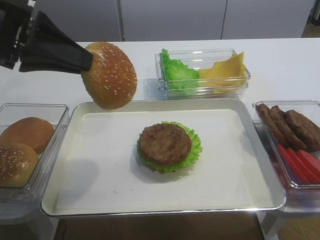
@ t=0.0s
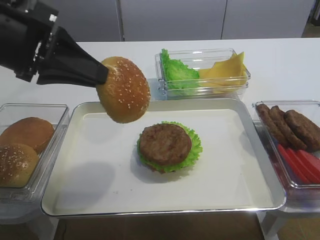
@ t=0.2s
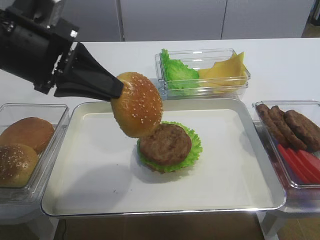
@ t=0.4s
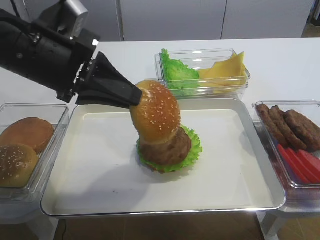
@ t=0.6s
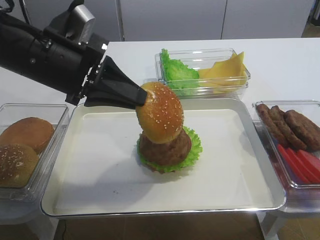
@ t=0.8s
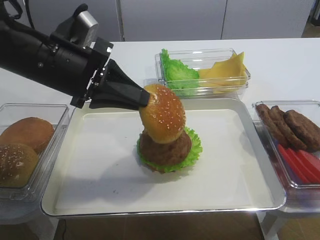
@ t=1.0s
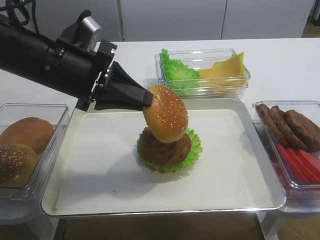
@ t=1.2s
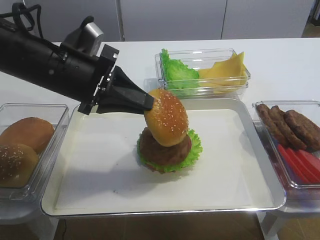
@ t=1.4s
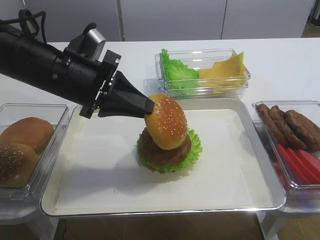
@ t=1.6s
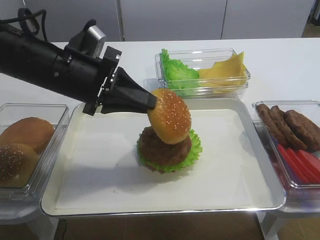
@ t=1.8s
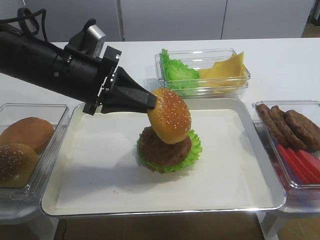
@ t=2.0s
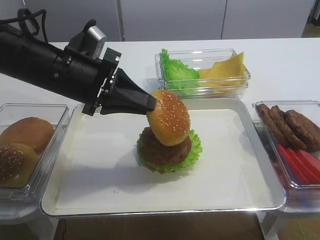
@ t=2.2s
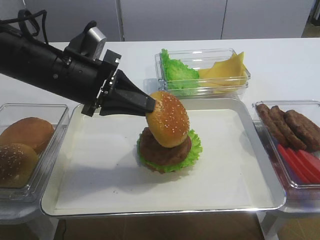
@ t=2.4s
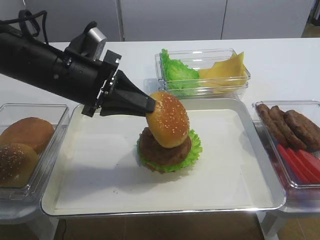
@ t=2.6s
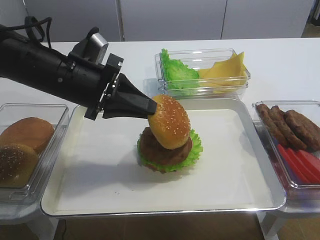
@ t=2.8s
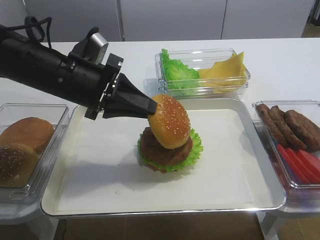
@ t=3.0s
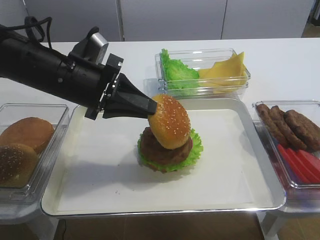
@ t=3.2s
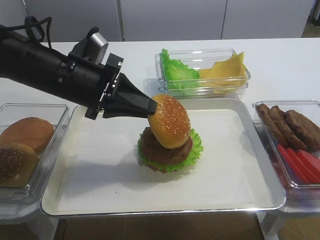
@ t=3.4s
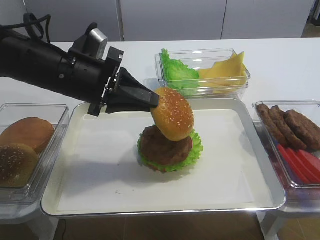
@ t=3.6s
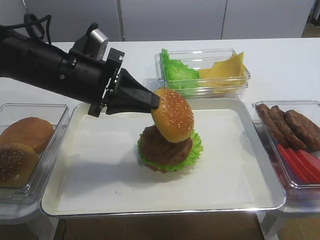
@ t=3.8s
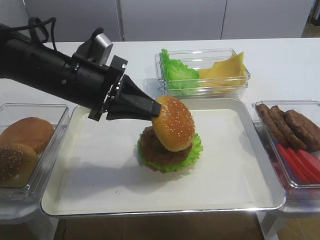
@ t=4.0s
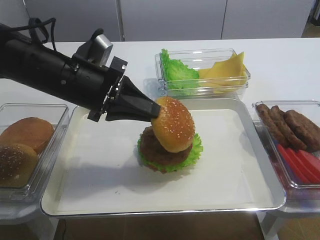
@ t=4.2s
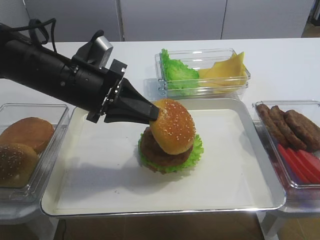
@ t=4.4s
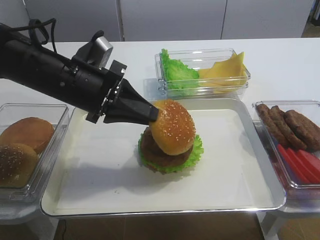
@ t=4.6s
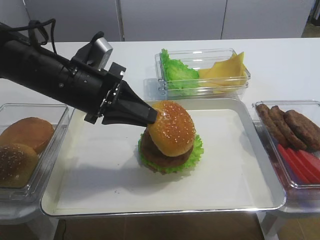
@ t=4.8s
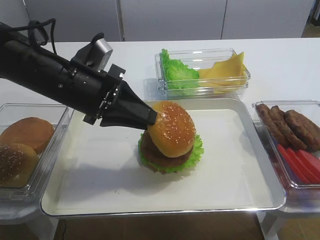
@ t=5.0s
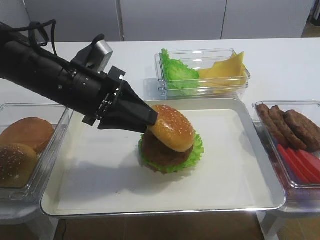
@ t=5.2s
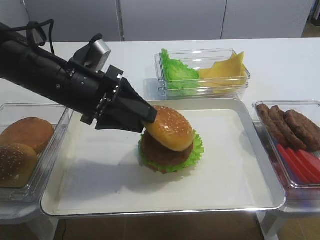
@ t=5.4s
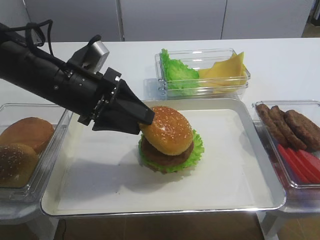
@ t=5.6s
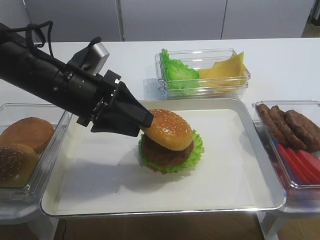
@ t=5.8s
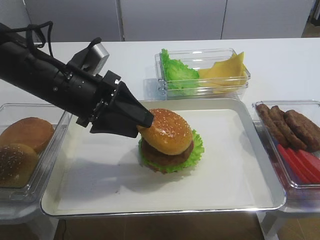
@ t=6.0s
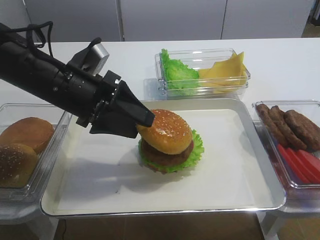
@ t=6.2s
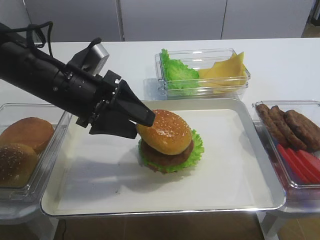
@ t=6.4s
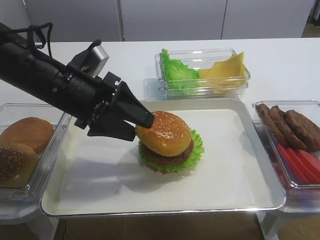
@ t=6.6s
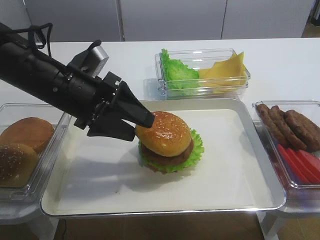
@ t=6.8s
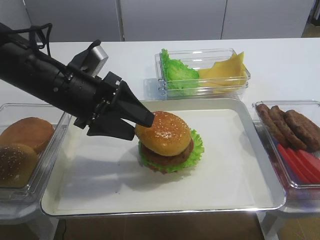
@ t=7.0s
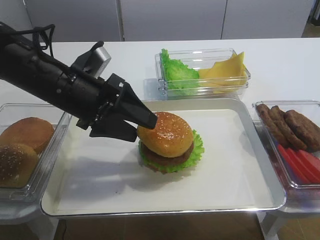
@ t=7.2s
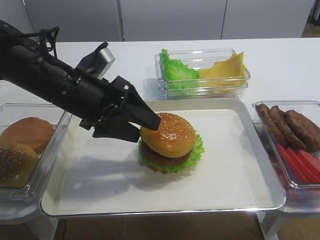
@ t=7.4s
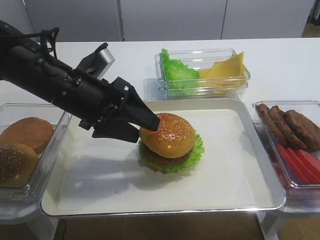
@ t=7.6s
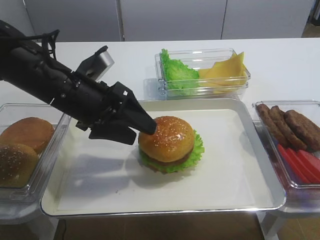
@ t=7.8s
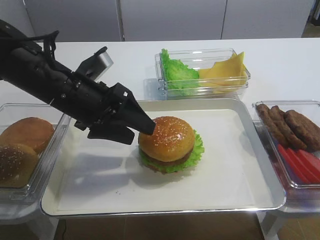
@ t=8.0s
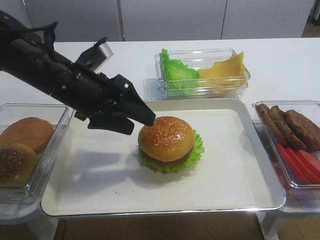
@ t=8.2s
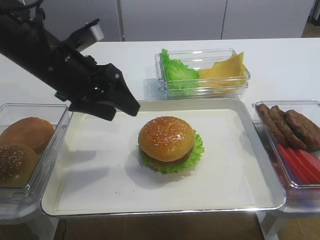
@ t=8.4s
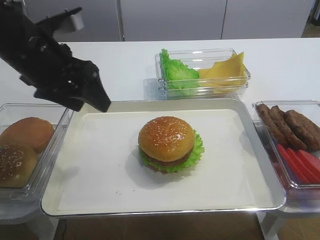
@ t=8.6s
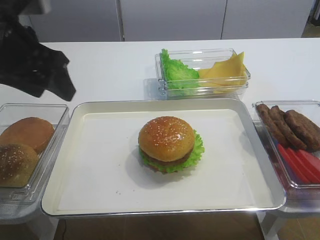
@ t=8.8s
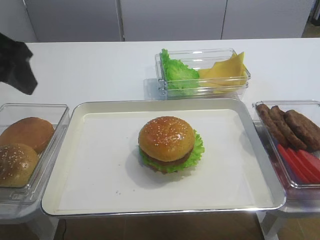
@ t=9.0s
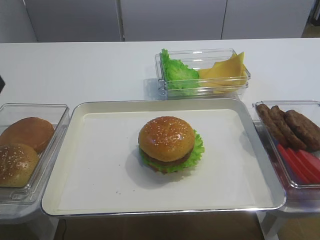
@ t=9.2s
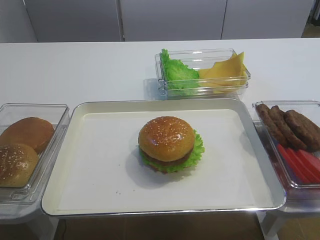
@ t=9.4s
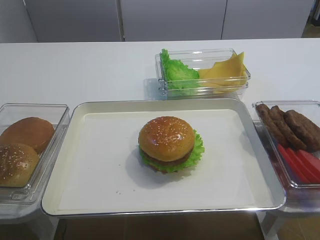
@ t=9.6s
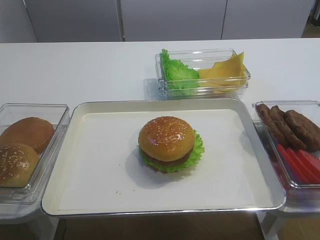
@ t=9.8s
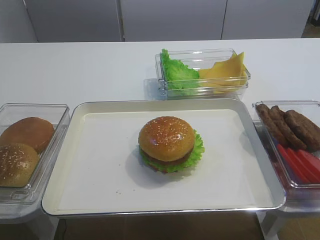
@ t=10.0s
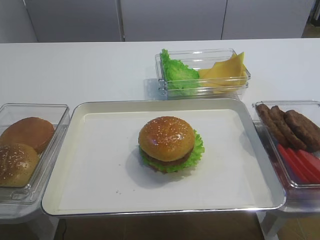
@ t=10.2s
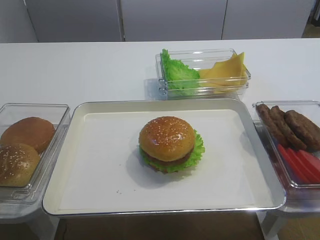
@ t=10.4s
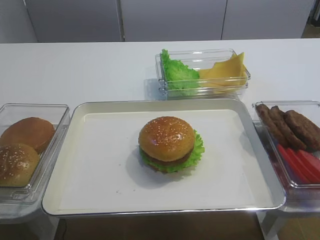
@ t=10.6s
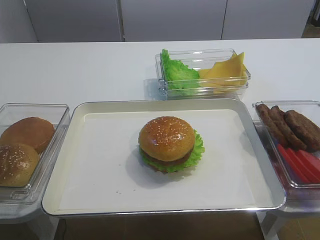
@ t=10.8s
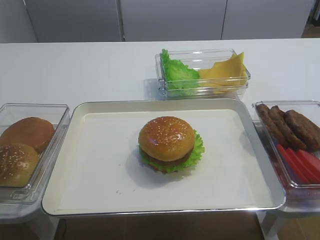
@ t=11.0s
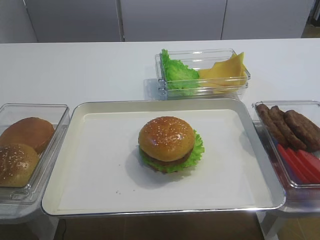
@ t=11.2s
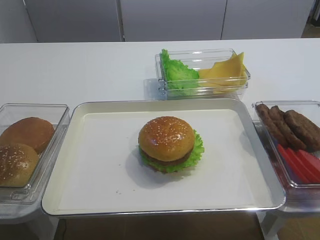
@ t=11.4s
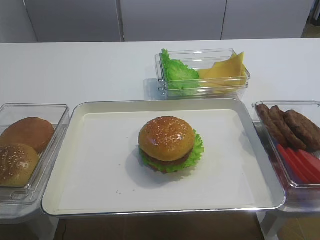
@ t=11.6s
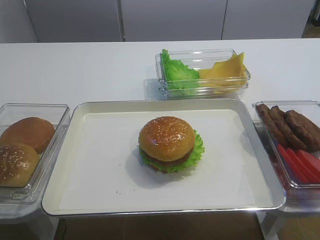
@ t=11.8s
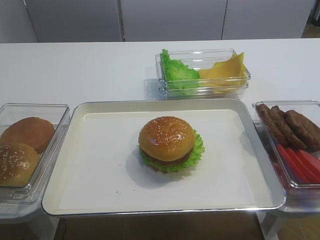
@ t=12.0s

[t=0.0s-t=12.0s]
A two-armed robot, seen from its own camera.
Step, t=0.0s to t=8.2s: Place the hamburger lid on the cutlet slice with the left gripper.
t=0.0s to t=1.6s: The left gripper travels downward and to the right by roughly 10 cm.
t=1.6s to t=4.4s: Both grippers stay put.
t=4.4s to t=6.0s: The left gripper opens up.
t=6.0s to t=7.6s: Both grippers stay put.
t=7.6s to t=9.0s: The left gripper is displaced upward, to the left and backward by some 15 cm.
t=9.0s to t=10.4s: The left gripper shifts roughly 25 cm backward.

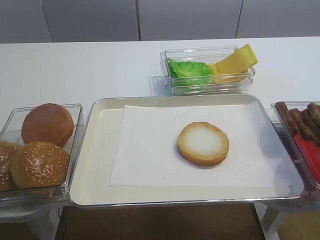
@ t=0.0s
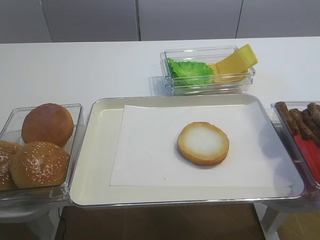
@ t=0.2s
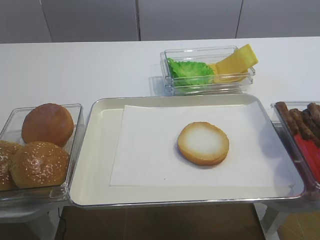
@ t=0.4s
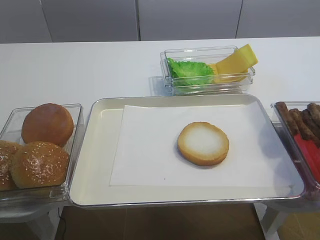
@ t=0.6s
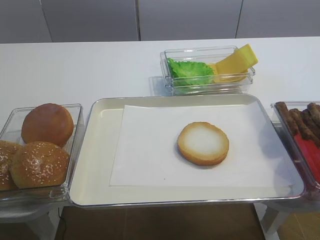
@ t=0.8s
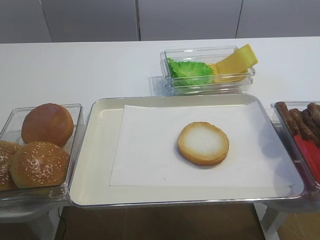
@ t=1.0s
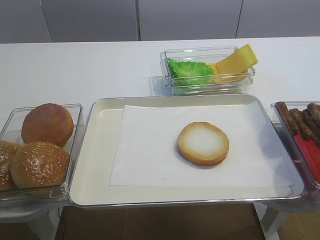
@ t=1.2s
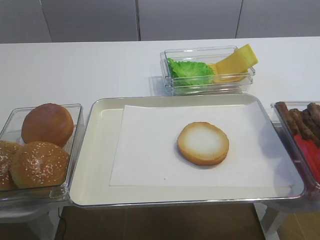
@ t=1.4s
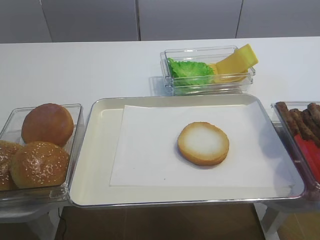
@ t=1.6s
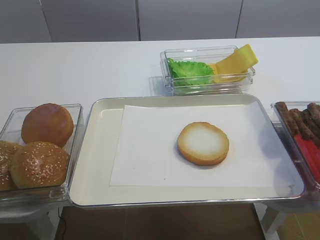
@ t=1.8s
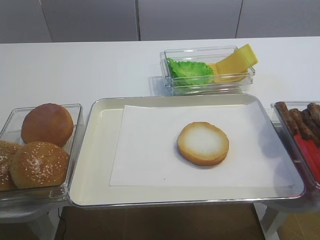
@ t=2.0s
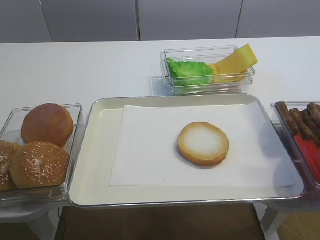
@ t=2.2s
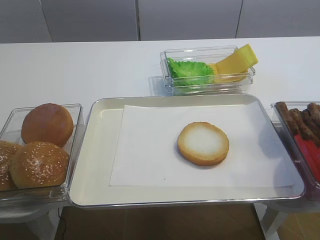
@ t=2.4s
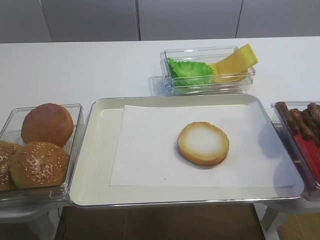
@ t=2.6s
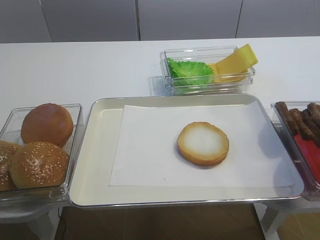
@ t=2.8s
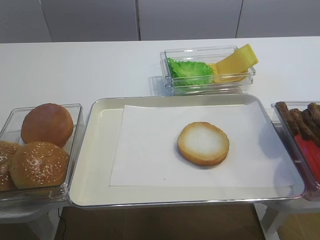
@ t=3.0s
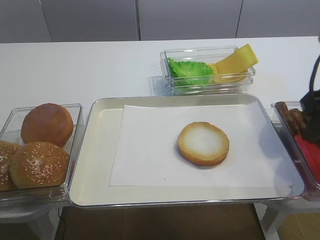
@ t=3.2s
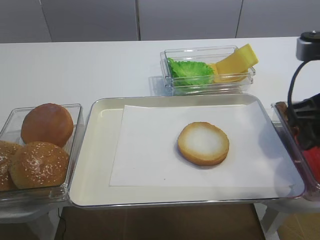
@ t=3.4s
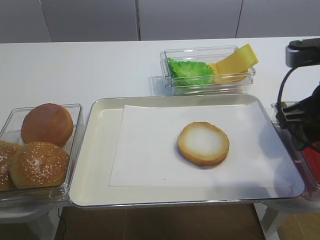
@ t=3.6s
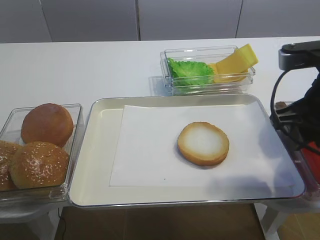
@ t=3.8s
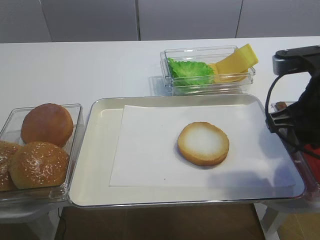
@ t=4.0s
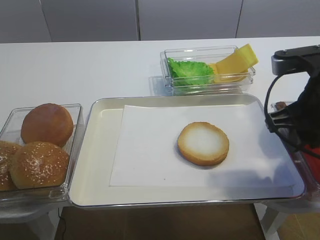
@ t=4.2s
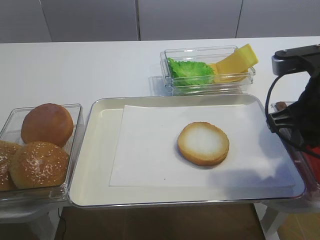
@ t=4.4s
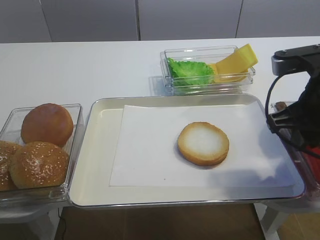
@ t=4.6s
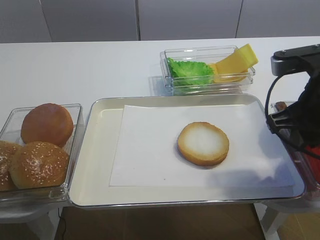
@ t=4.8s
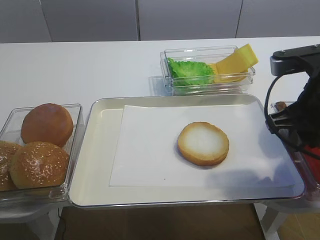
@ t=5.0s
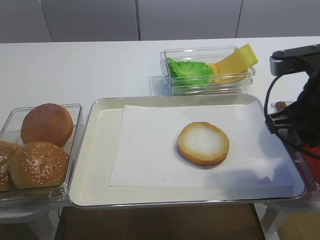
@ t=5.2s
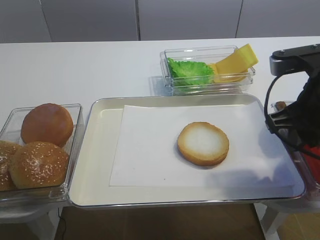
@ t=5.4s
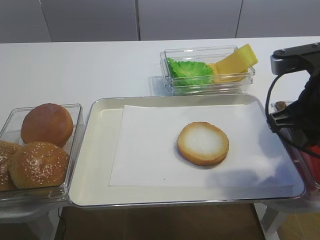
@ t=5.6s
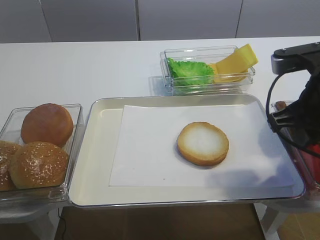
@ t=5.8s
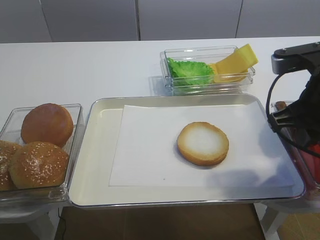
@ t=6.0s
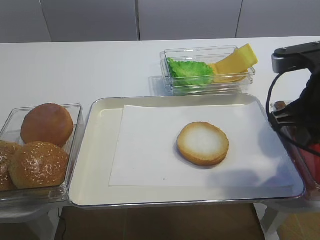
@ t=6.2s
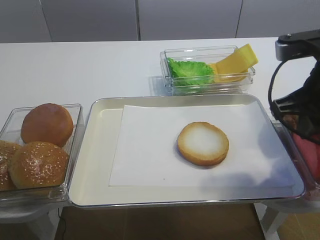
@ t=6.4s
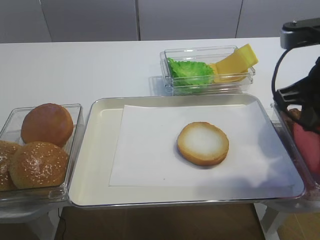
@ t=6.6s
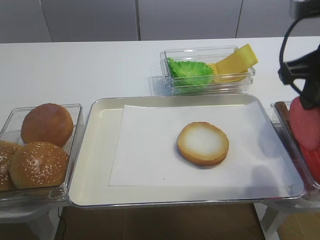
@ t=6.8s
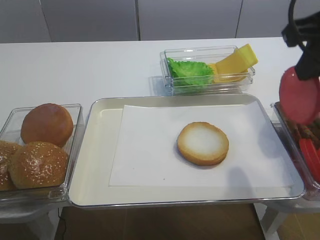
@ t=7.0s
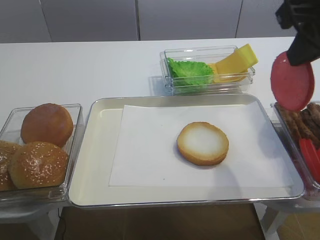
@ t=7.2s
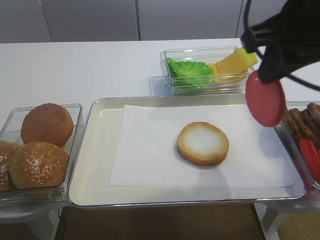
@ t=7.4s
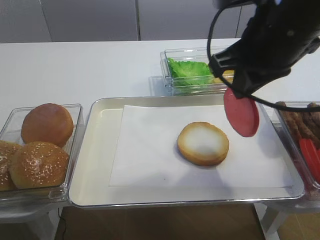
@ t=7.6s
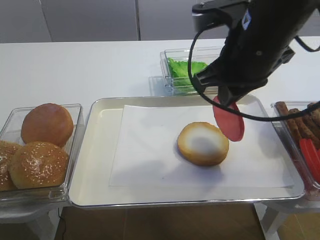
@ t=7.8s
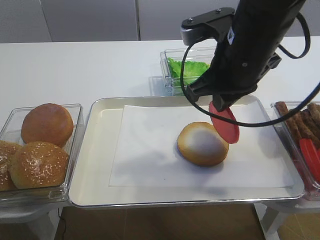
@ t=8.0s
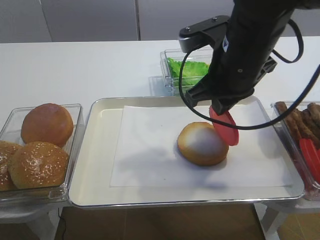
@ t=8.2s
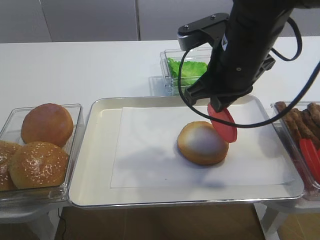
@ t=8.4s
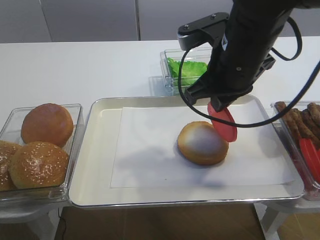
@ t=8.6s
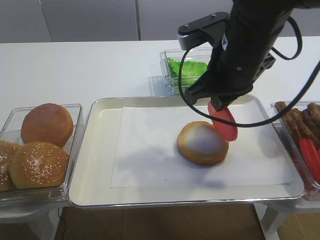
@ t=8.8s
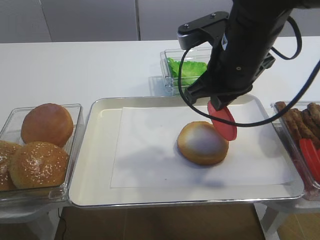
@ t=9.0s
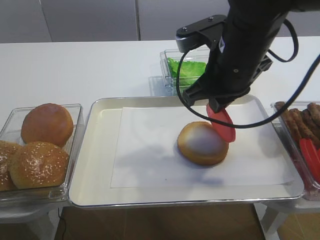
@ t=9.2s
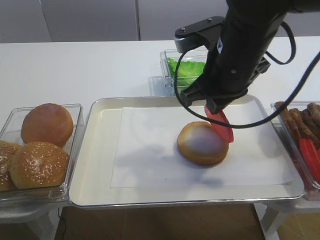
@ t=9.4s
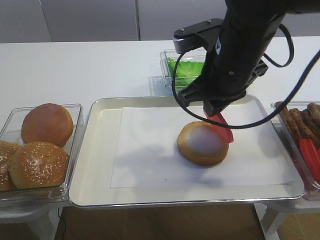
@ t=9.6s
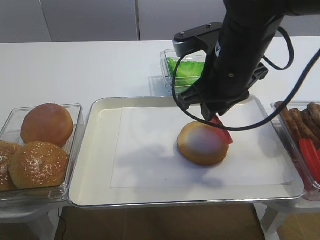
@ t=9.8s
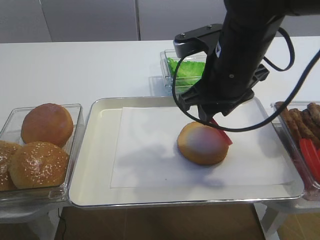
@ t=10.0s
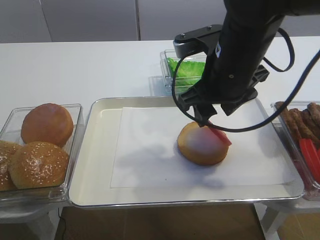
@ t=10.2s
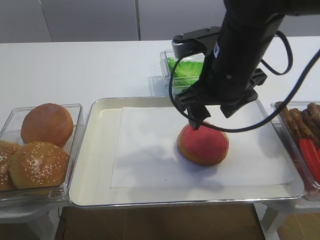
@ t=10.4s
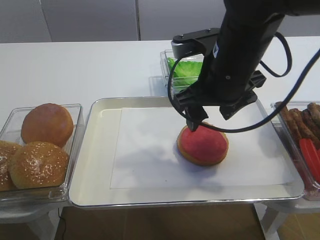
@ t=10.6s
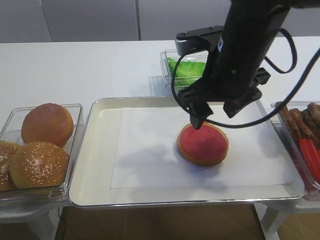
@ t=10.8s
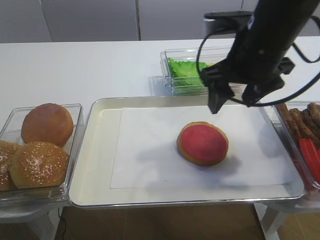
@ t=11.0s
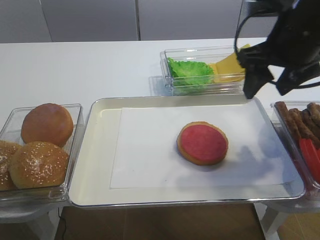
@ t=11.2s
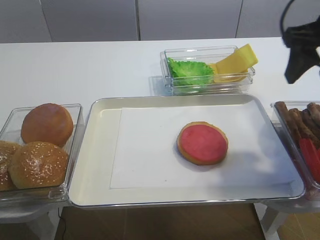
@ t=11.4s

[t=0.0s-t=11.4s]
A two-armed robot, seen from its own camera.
Step, t=0.0s to t=6.6s: Pick up the tomato slice with the right gripper.
Step, t=6.8s to t=10.6s: Place the tomato slice on the bread slice with the right gripper.
t=2.8s to t=4.2s: The right gripper shifts roughly 10 cm forward and downward.
t=4.2s to t=5.6s: Neither gripper changes place.
t=5.6s to t=7.2s: The right gripper travels upward by roughly 10 cm.
t=7.2s to t=8.6s: The right gripper shifts some 15 cm downward, to the left and forward.
t=8.6s to t=10.0s: The right gripper opens up.
t=10.0s to t=11.4s: The right gripper travels to the right and upward by about 15 cm.
